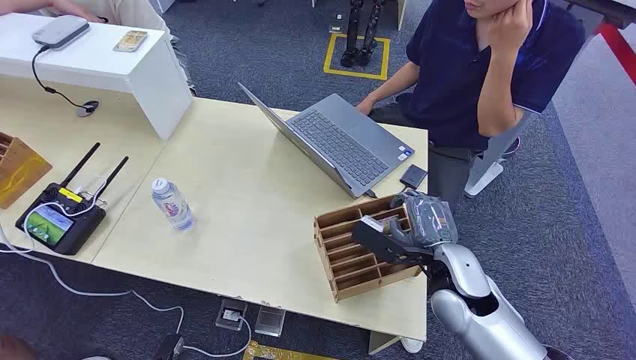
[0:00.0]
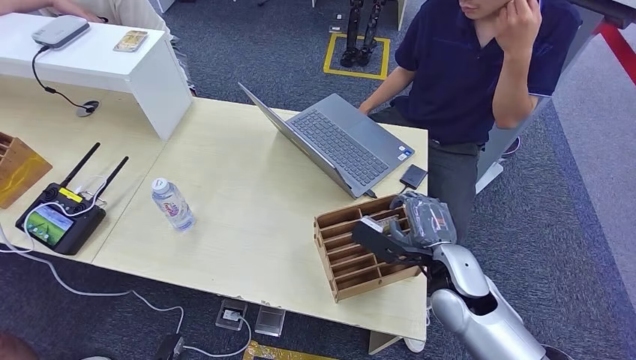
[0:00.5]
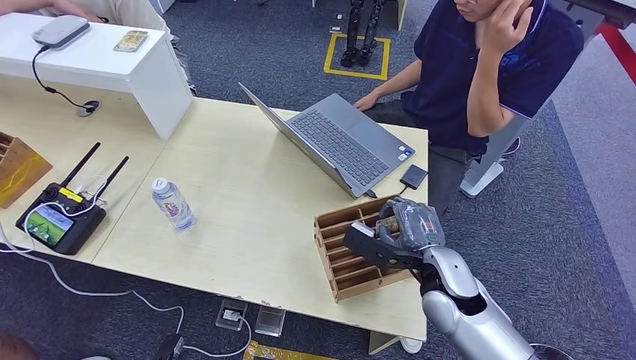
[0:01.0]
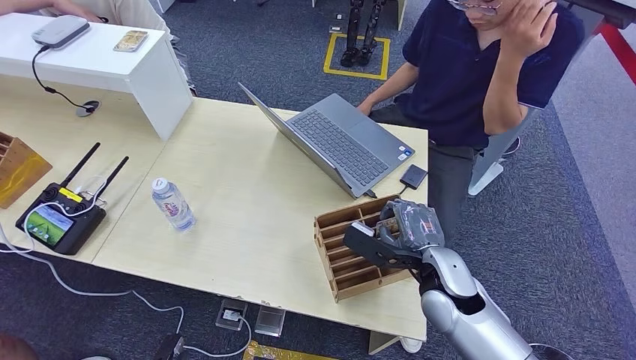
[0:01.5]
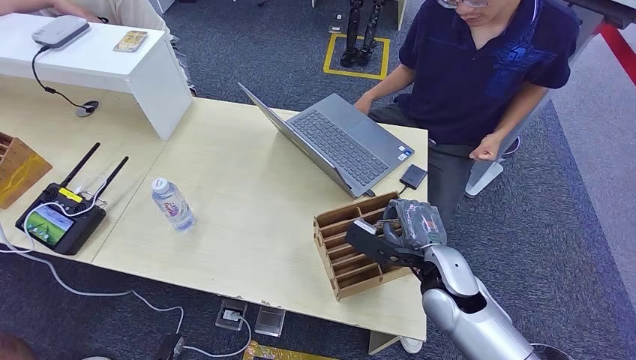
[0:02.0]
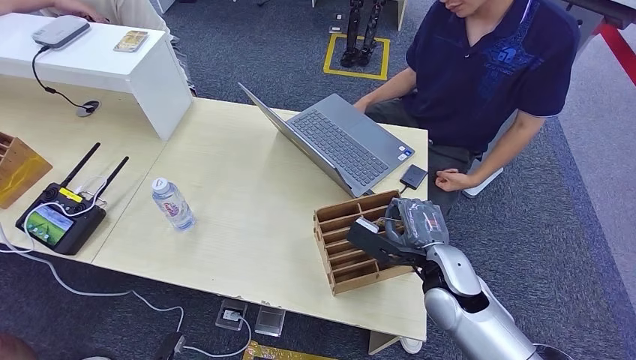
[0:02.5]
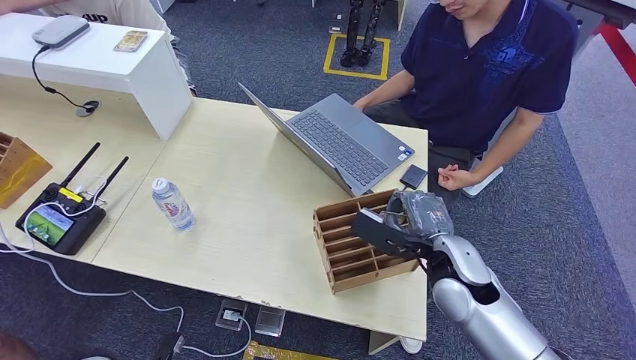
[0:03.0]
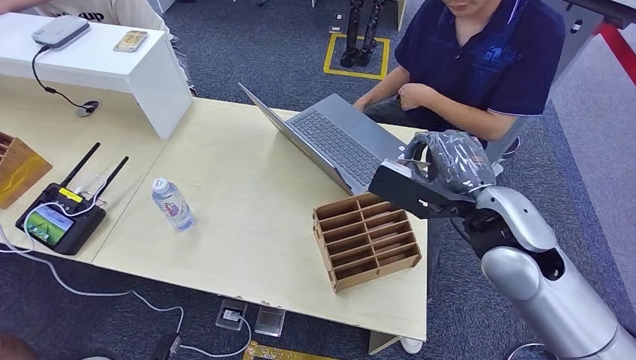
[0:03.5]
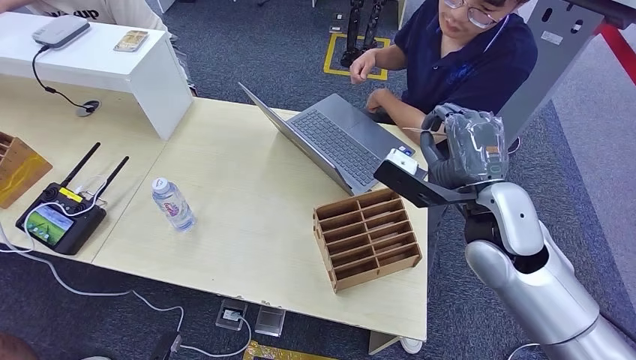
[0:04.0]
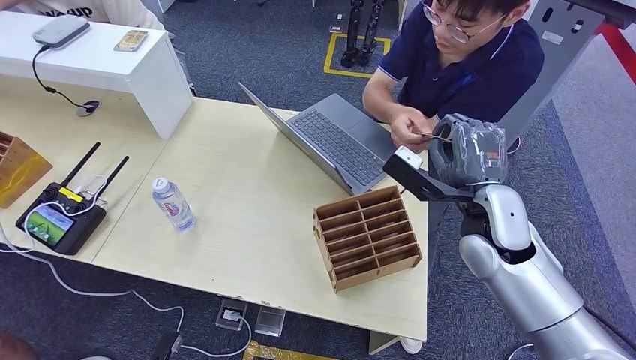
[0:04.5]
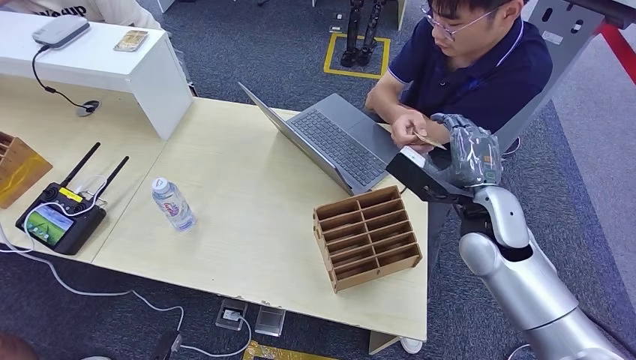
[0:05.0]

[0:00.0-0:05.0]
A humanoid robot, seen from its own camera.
Step, 0:00.0 to 0:03.5: Pick up the room card from the card holder.
Step, 0:04.0 to 0:05.0: Hand the room card to the target.
